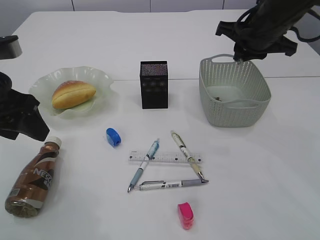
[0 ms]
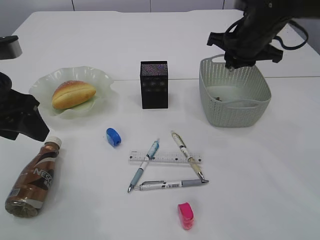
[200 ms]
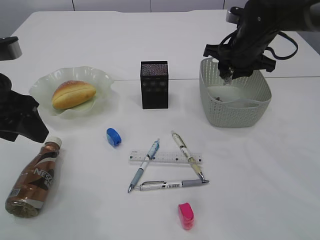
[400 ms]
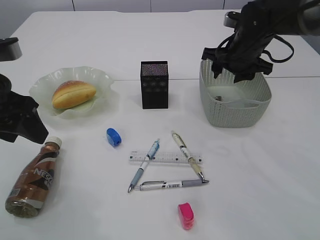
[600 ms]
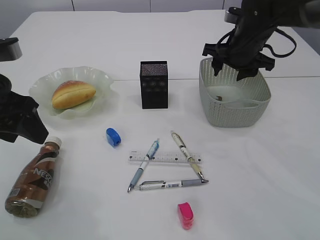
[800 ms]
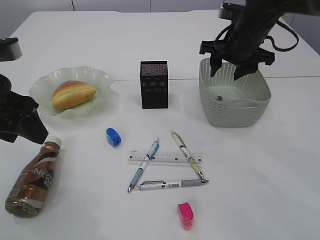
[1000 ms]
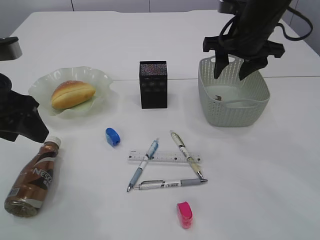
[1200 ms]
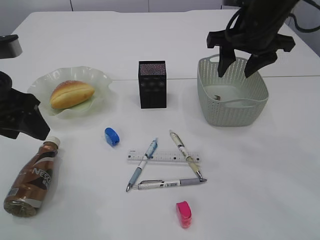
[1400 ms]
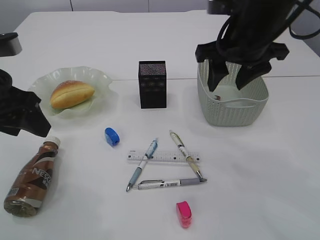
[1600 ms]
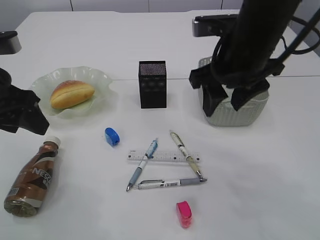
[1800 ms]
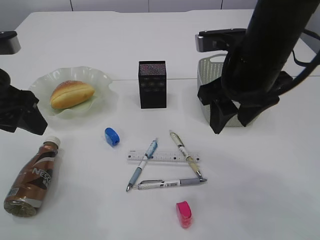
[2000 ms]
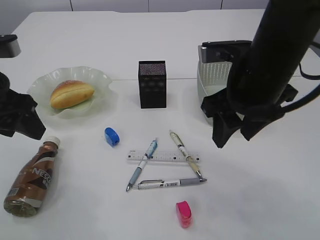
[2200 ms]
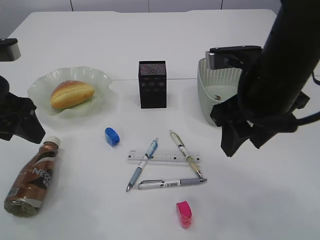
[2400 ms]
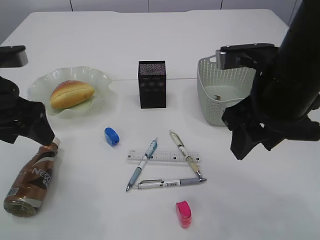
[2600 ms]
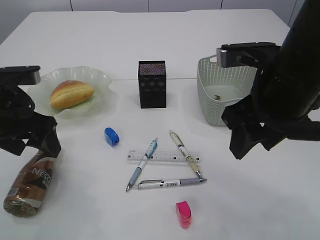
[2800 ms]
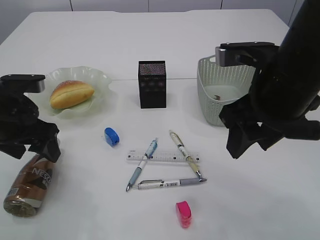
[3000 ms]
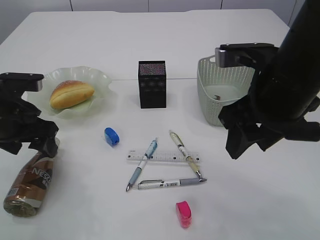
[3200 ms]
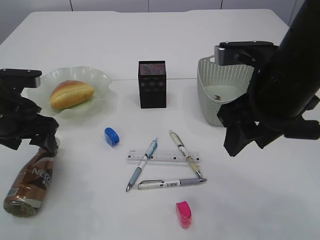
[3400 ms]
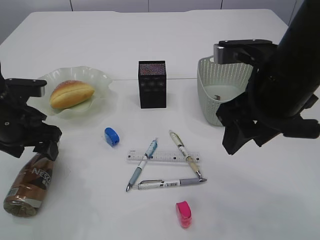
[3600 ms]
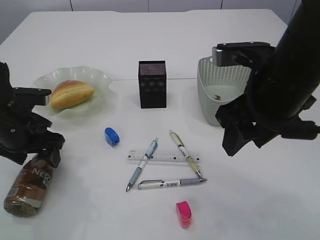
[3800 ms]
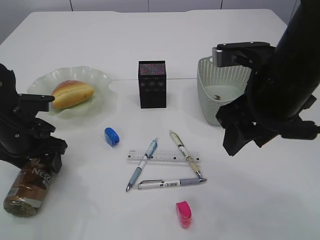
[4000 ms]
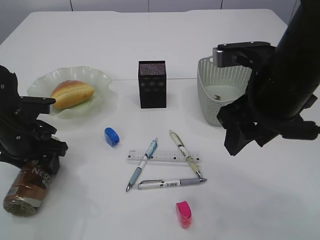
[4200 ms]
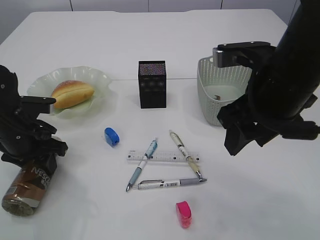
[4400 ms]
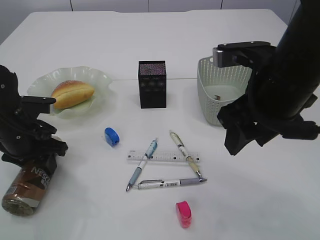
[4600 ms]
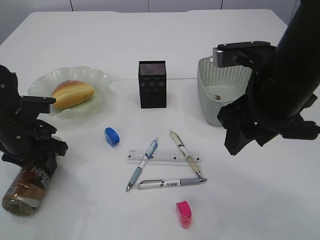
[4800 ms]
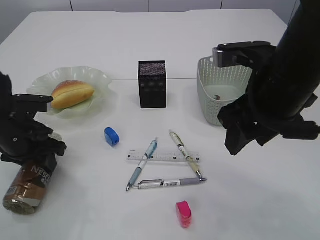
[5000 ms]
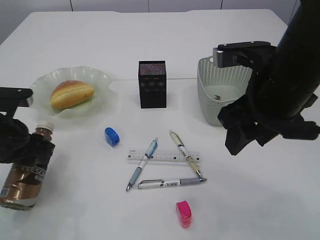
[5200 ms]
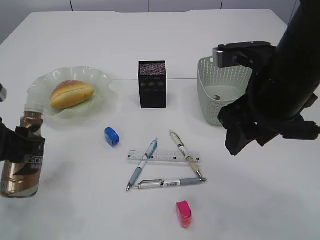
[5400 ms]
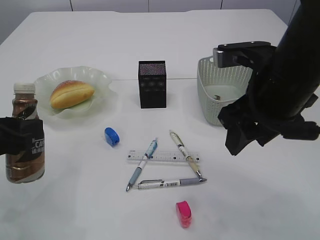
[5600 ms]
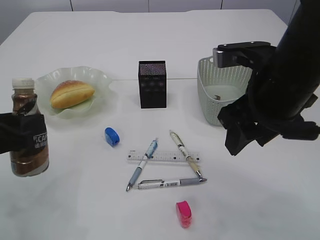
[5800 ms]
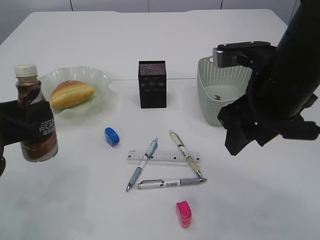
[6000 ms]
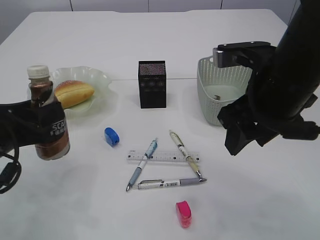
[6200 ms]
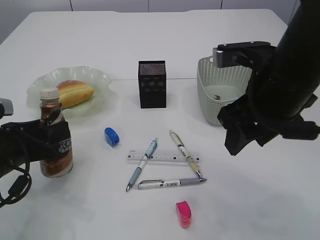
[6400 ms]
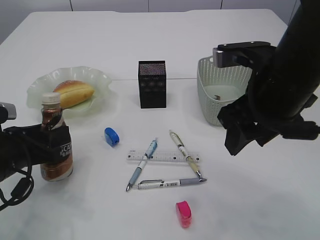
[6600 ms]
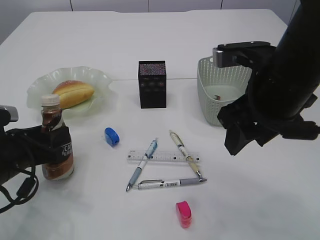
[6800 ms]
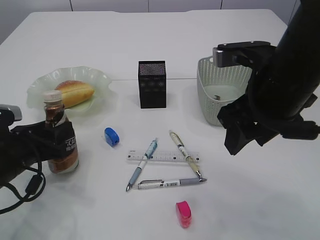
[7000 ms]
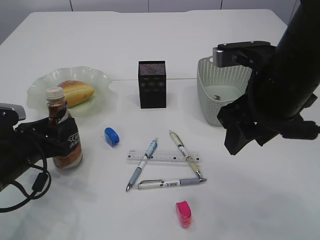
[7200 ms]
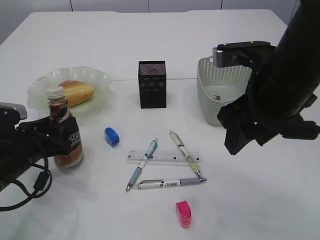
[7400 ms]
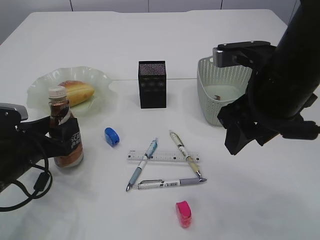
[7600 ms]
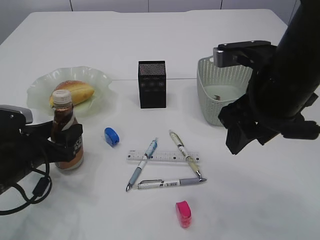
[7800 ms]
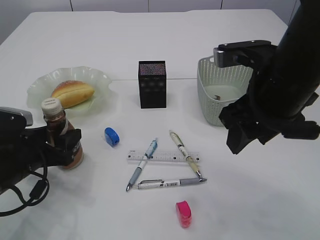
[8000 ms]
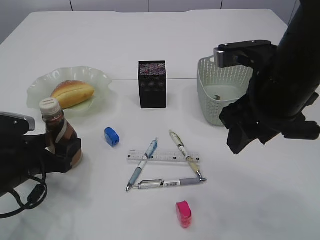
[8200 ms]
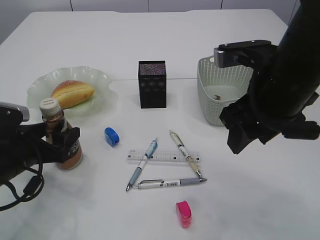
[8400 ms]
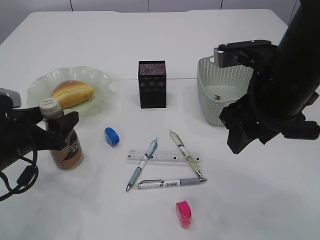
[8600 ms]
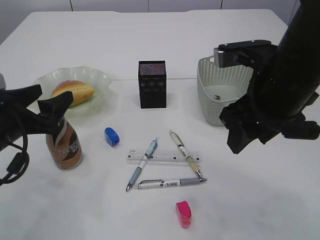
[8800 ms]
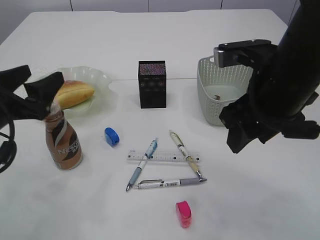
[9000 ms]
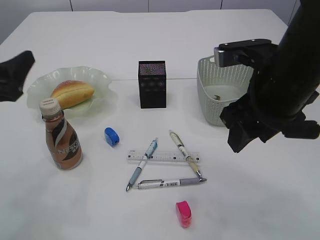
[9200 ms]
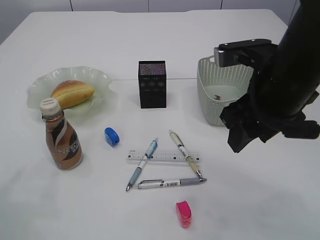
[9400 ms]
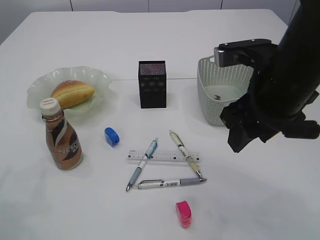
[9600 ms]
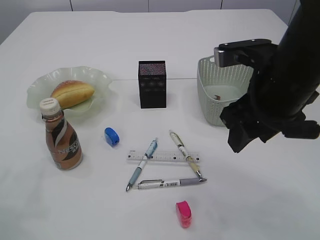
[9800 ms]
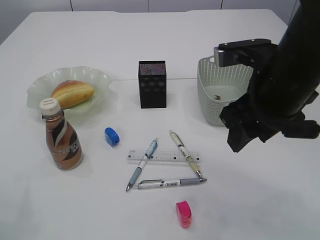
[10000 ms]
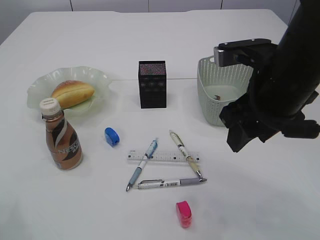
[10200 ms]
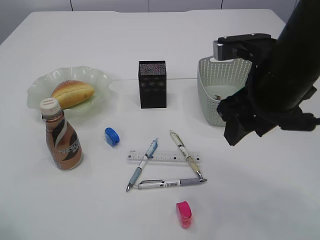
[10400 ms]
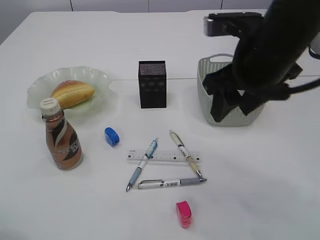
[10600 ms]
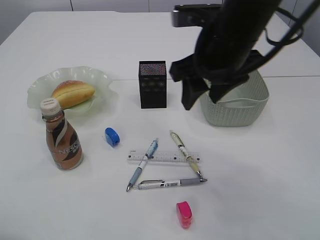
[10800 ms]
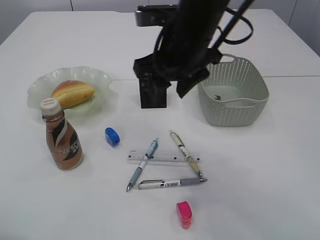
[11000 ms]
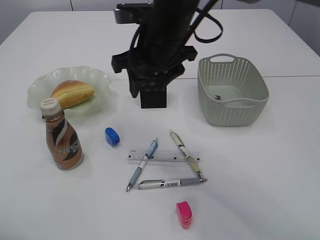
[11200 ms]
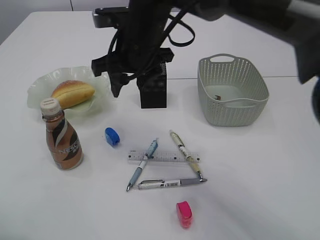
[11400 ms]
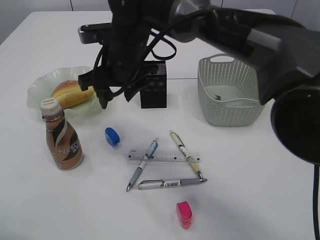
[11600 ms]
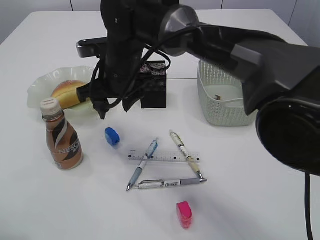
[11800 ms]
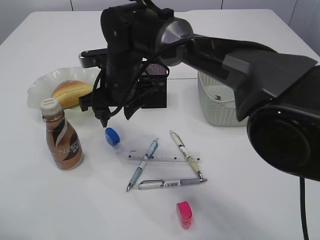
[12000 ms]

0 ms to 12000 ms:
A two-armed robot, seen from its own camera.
Step, 0 ms to 1400 ms: Place the waste paper in the basket.
Step, 1600 ms to 5800 ms: Pick up the bottle with the left arm.
Step, 6000 ms to 9000 ms: Place the bottle.
0 ms to 1600 ms: The right gripper moves backward, some 5 cm, and opens.
1600 ms to 3000 ms: The left gripper heads downward, covering some 5 cm, and opens its fingers, while the right gripper moves backward, some 10 cm.
3000 ms to 4400 ms: The left gripper travels downward by approximately 5 cm, and closes up.
4400 ms to 6000 ms: The left gripper goes approximately 10 cm backward and upward.
6000 ms to 7600 ms: The left gripper is displaced downward by about 10 cm.
7600 ms to 9000 ms: The left gripper travels upward by approximately 10 cm, and opens.
9000 ms to 10400 ms: The left gripper travels to the left and backward by roughly 10 cm.
10400 ms to 12000 ms: The right gripper goes approximately 25 cm to the left and forward.

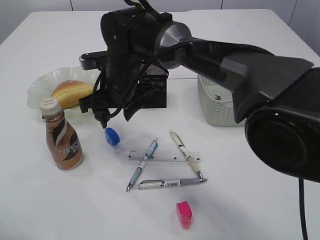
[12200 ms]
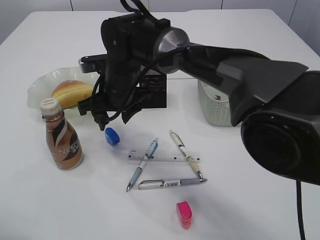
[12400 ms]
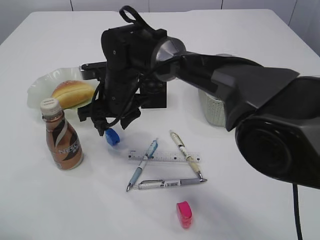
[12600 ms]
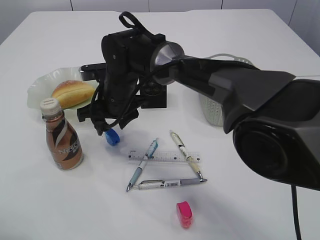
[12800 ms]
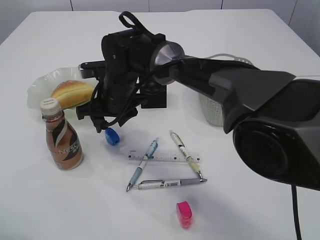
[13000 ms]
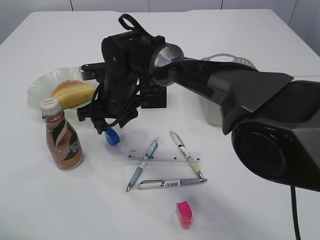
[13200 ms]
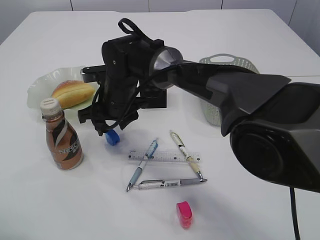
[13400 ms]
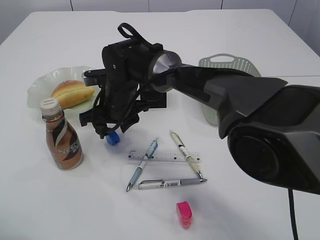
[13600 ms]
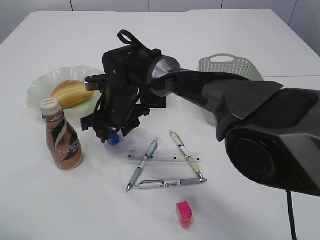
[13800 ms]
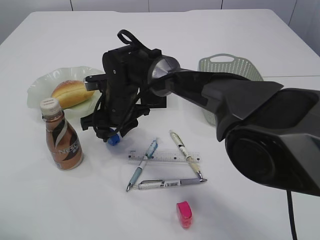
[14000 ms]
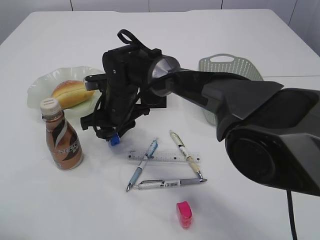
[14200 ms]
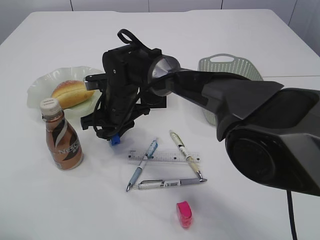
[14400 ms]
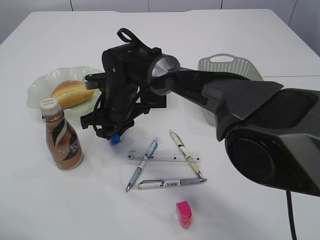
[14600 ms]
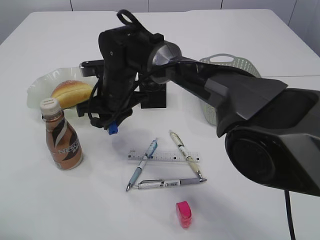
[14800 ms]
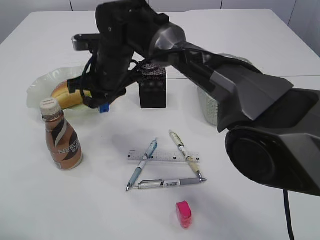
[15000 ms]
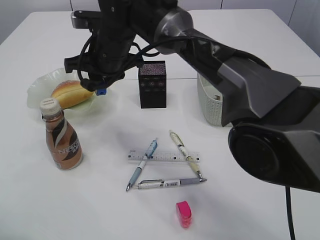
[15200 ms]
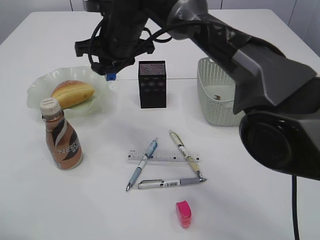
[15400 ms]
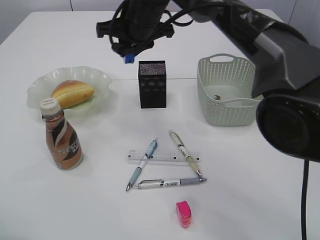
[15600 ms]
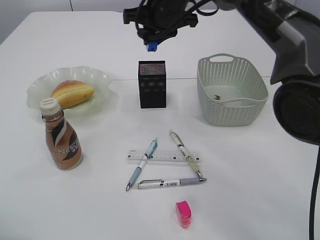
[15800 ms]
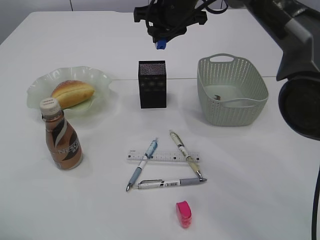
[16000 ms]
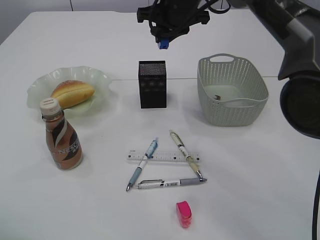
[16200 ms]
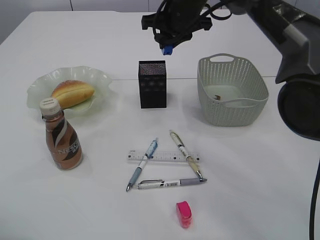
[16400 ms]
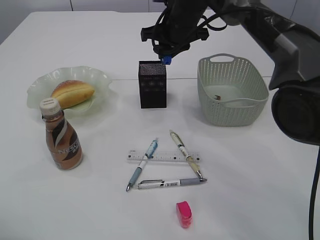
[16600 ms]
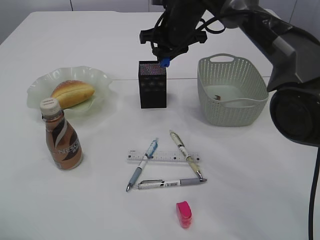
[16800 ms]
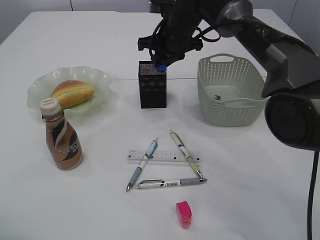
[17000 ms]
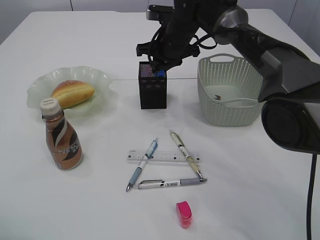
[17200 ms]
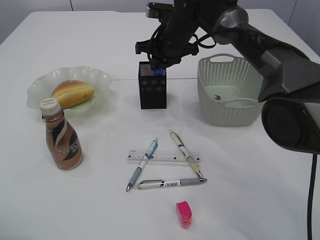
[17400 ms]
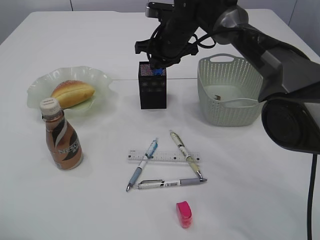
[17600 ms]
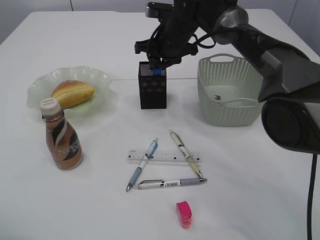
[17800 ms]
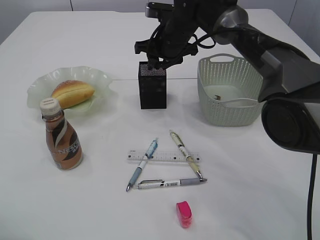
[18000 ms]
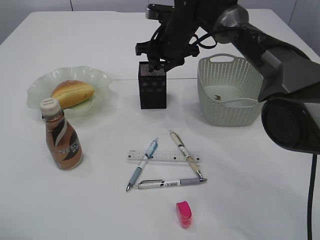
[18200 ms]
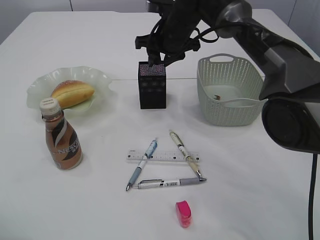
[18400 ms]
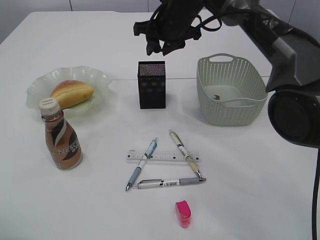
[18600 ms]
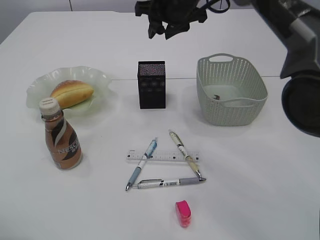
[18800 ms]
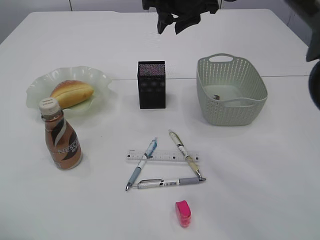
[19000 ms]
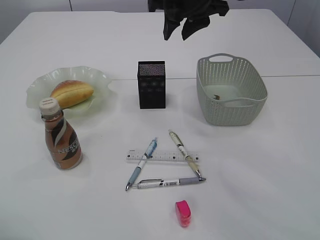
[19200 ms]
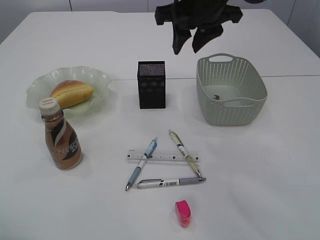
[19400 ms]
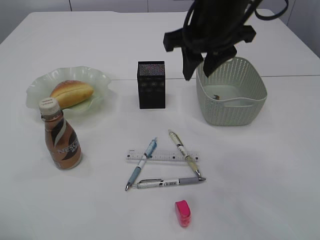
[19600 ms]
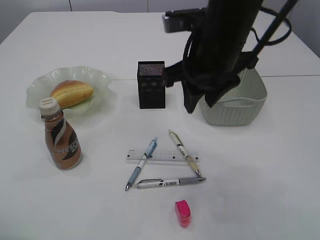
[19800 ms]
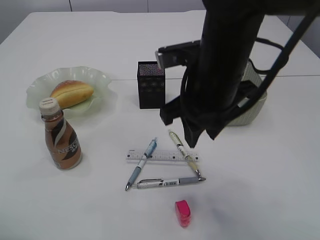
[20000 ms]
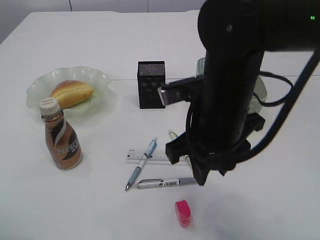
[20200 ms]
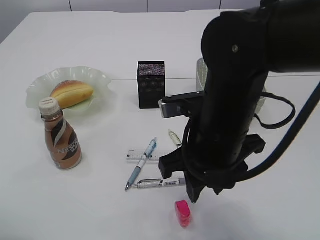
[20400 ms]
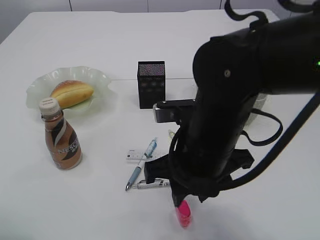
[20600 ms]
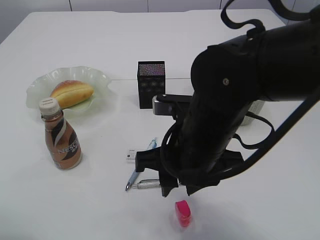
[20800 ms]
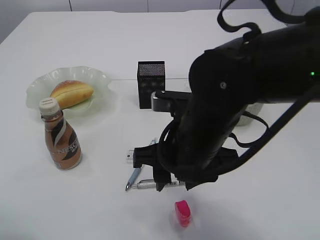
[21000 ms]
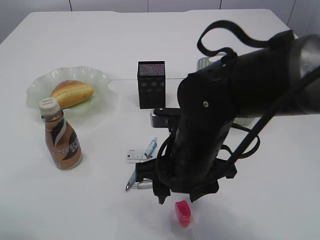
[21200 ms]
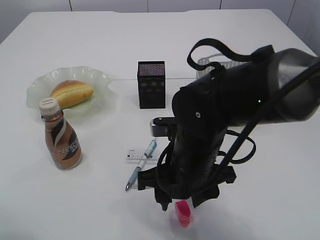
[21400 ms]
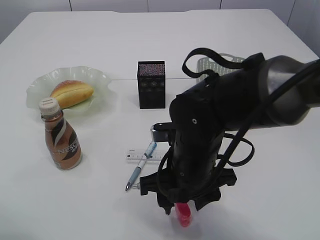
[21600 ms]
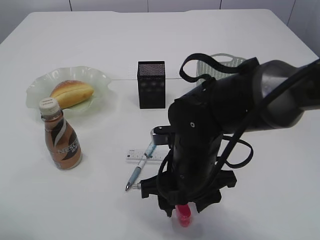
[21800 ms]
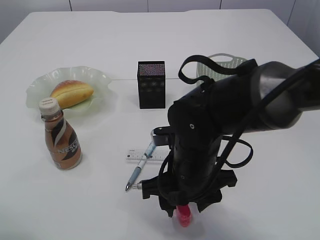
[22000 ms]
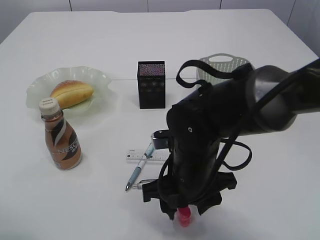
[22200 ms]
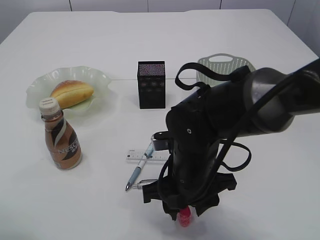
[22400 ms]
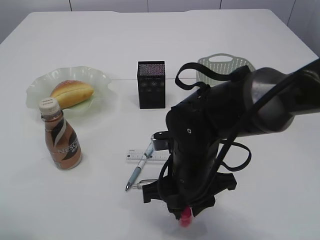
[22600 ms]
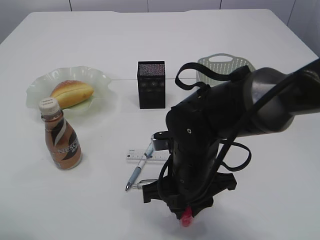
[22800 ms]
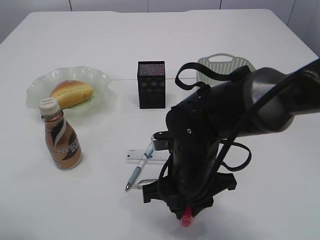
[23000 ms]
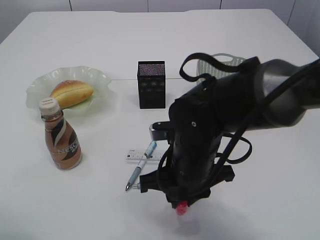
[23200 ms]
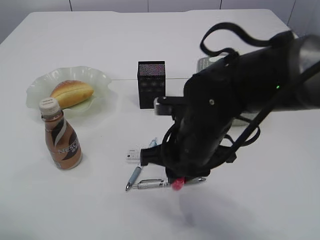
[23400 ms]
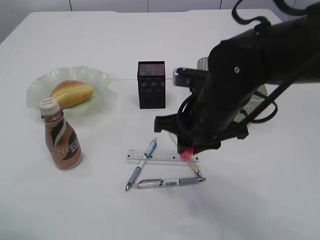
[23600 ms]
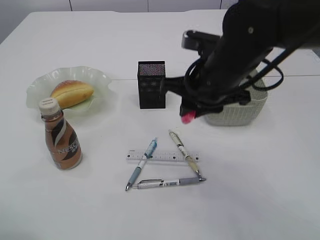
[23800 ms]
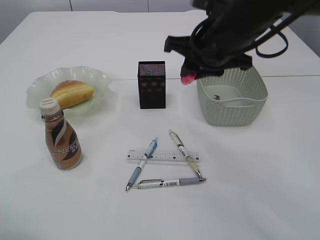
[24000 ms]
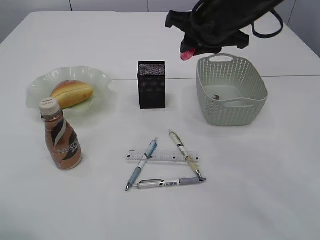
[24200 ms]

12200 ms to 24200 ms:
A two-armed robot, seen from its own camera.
Step, 12200 ms to 15000 ms: Pick up the blue pencil sharpener.
Step, 15200 ms to 18000 ms: Place the blue pencil sharpener into the pen holder.
Step, 18200 ms to 23400 ms: Pick up the red pencil sharpener.
12200 ms to 13800 ms: The right gripper moves downward, roughly 5 cm.
13800 ms to 15200 ms: The right gripper goes approximately 10 cm upward, and closes.
15200 ms to 16600 ms: The right gripper moves to the right and forward, some 15 cm.
16600 ms to 18200 ms: The grippers move only a little.
18200 ms to 19800 ms: The right gripper travels backward and upward by some 20 cm.
19800 ms to 21200 ms: The right gripper is displaced downward and backward by some 15 cm.
21200 ms to 22600 ms: The right gripper shifts approximately 5 cm downward.
22600 ms to 24200 ms: The right gripper heads upward, forward and to the right, covering about 25 cm.
